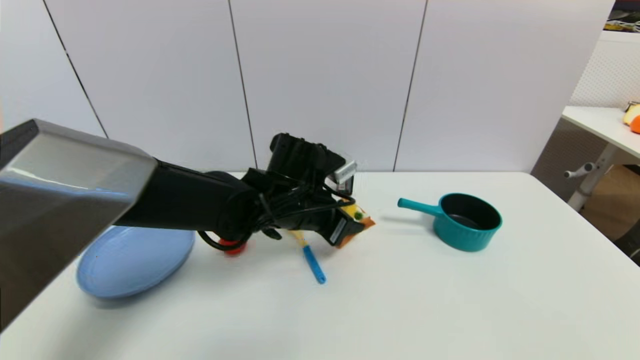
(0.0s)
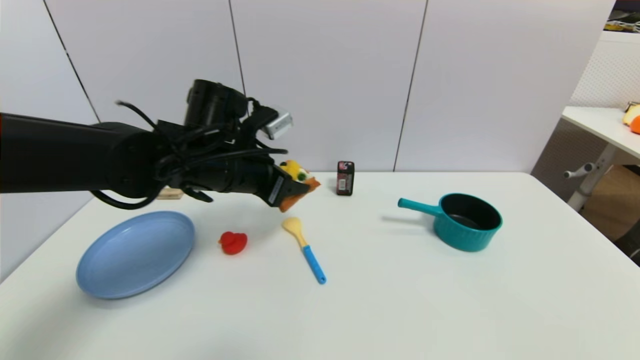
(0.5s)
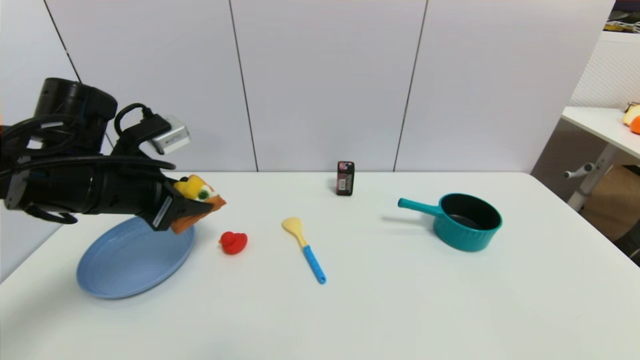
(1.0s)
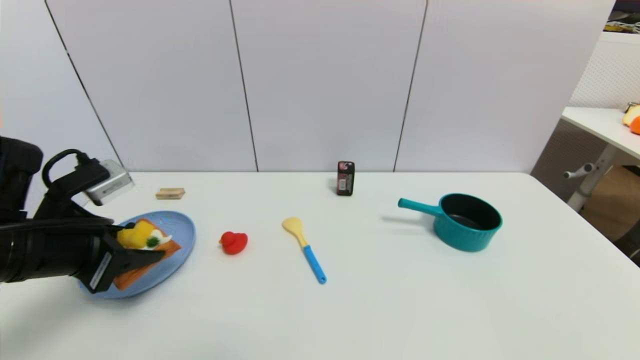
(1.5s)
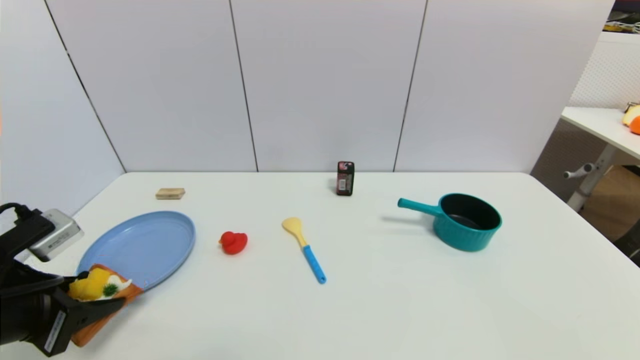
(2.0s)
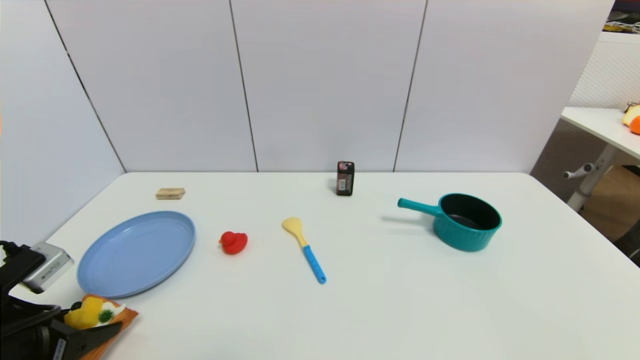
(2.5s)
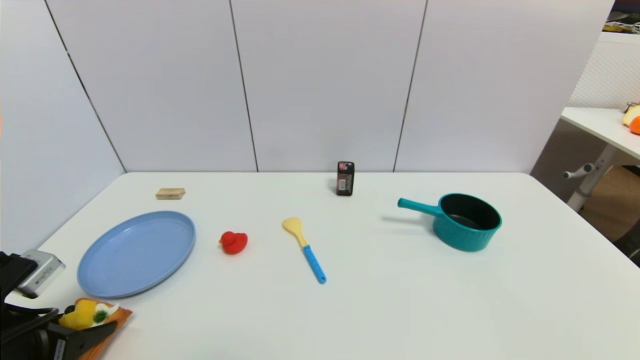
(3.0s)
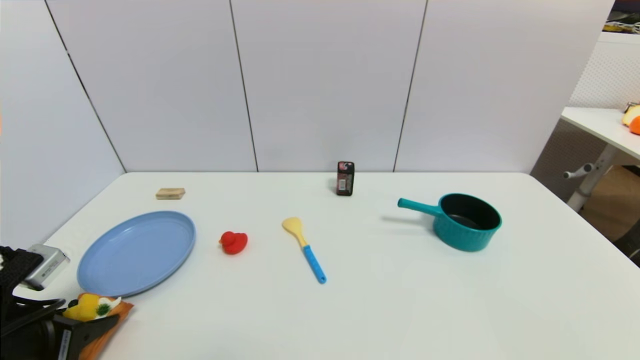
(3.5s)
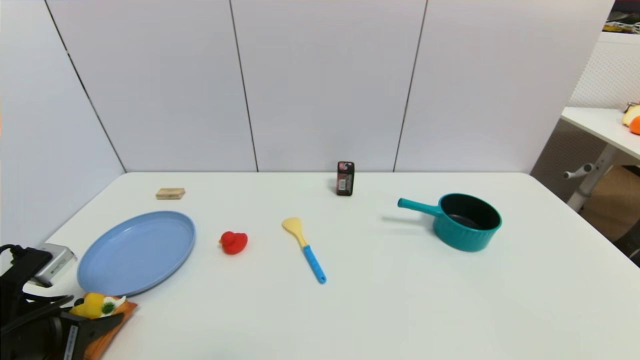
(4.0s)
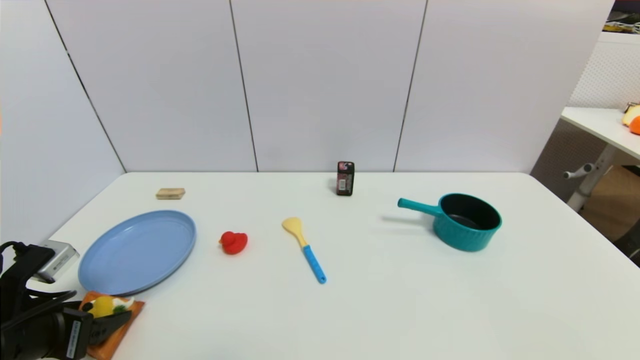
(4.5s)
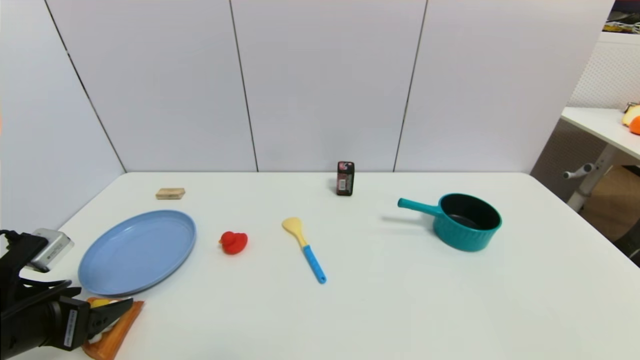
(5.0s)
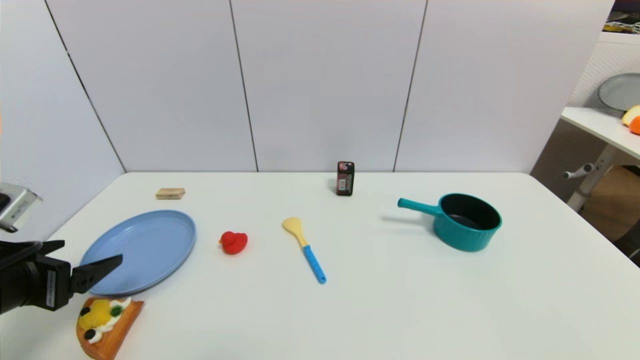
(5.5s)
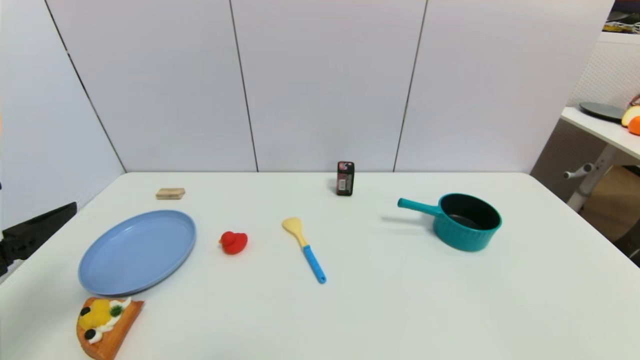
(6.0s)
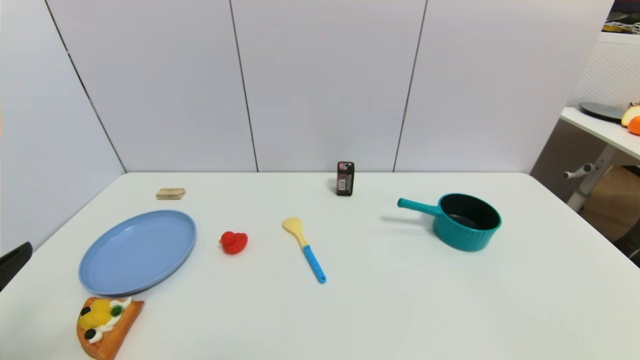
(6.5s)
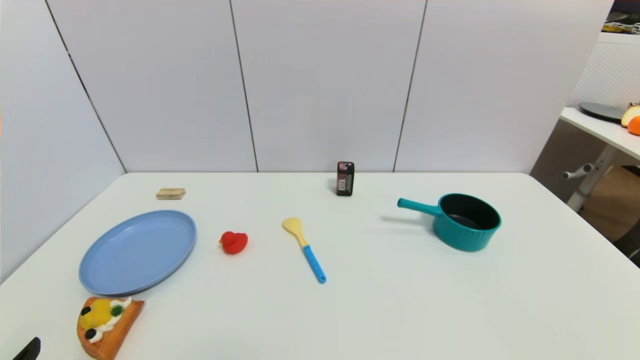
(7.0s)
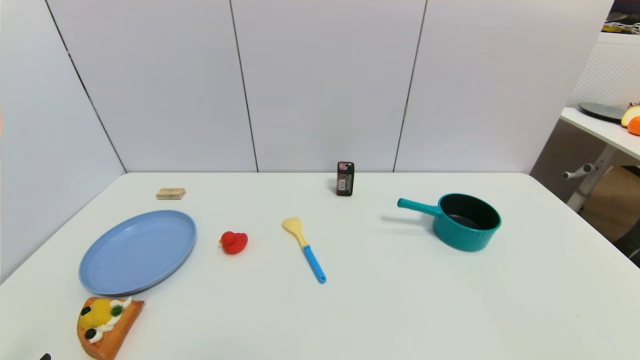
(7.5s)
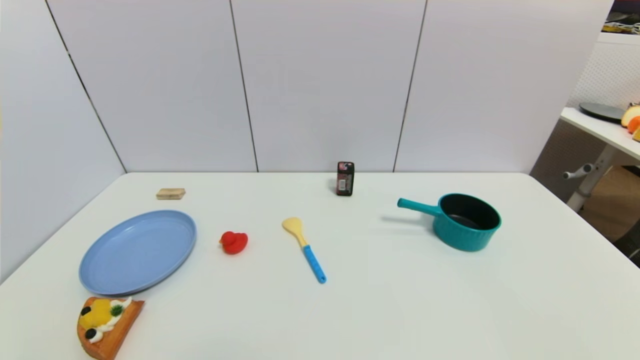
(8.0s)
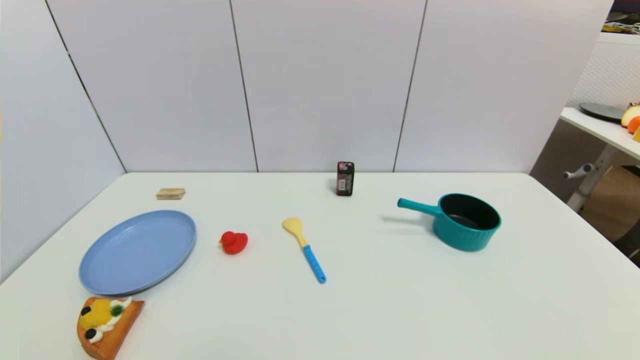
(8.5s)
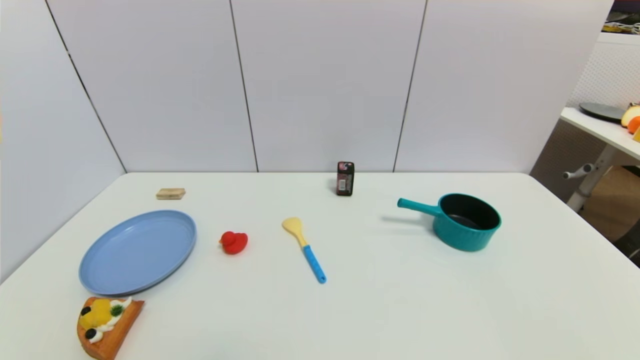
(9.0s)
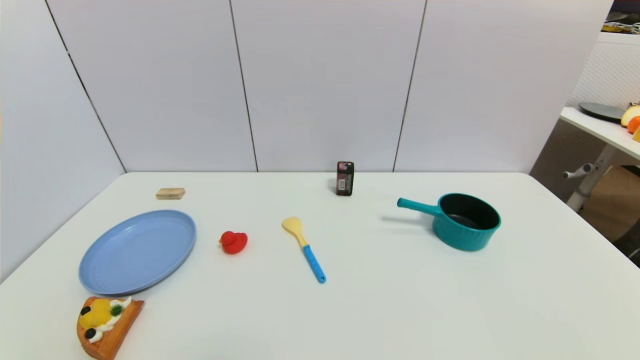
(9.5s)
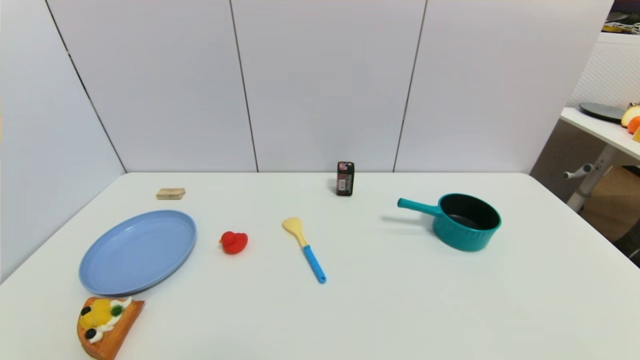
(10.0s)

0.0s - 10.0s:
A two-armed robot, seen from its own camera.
Step, 0.0s - 4.5s: Place the pizza on the table with left gripper.
0.0s - 2.0s: The left gripper shifts some 30 cm to the left and backward.
2.0s - 4.0s: The left gripper is displaced downward by some 5 cm.
4.0s - 6.0s: The left gripper moves upward, about 10 cm, and opens its fingers.
6.0s - 8.0s: The left gripper travels downward and backward by approximately 20 cm.

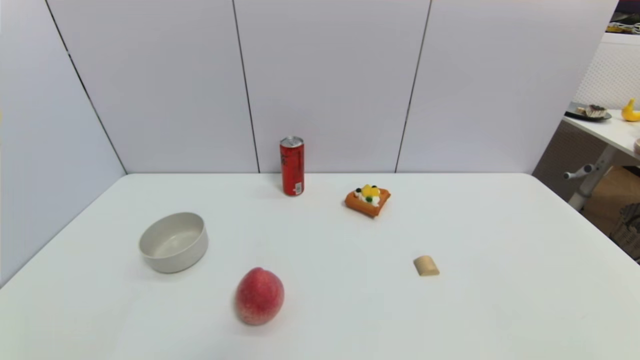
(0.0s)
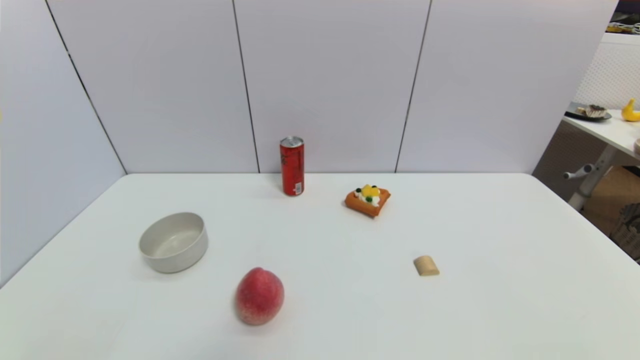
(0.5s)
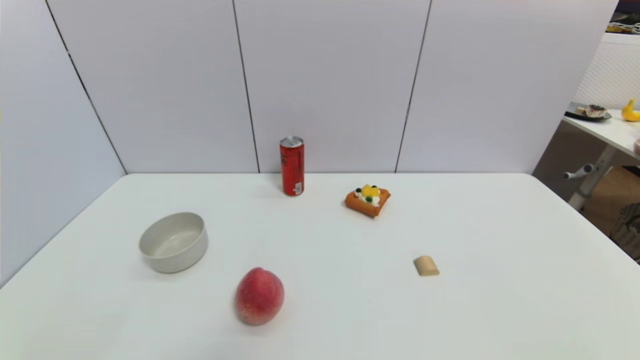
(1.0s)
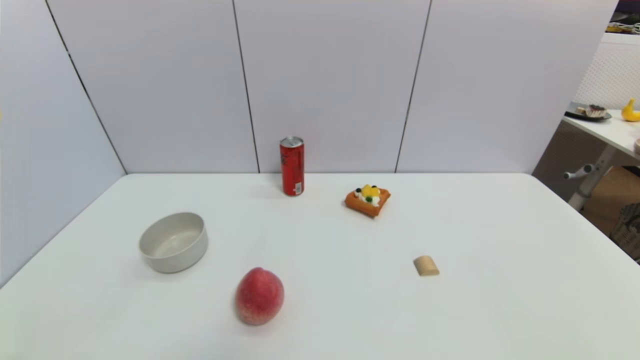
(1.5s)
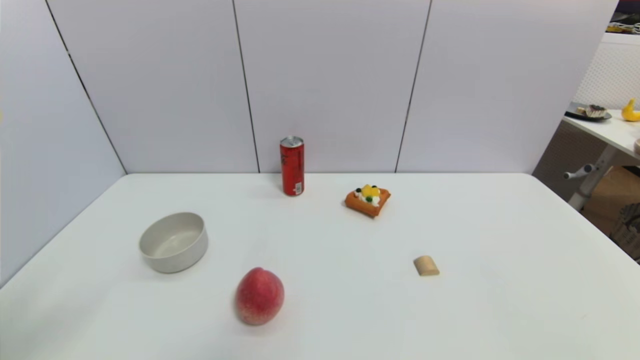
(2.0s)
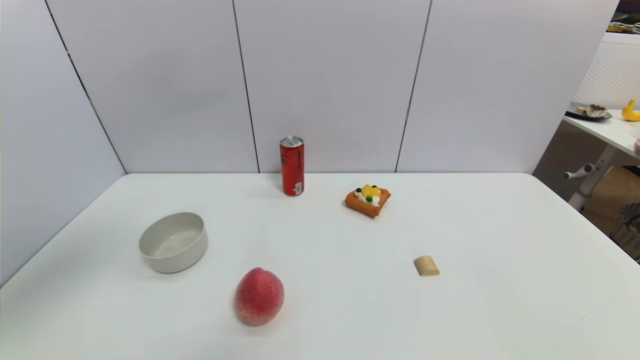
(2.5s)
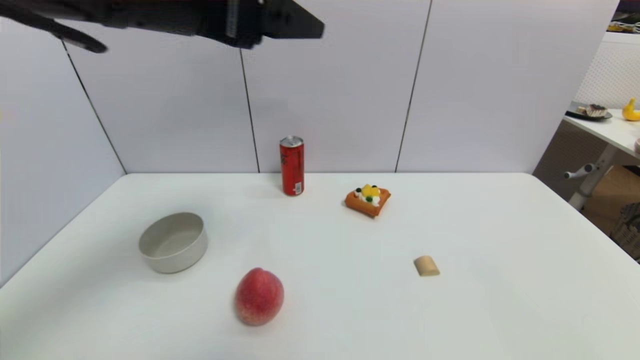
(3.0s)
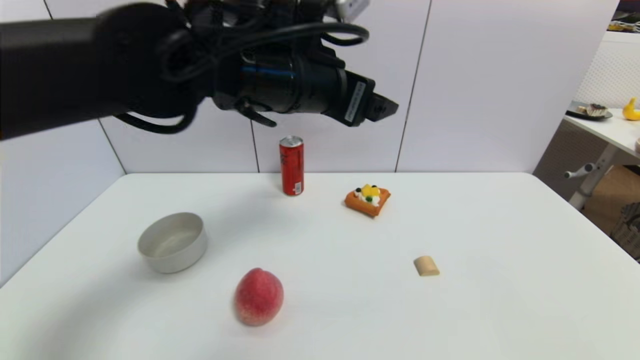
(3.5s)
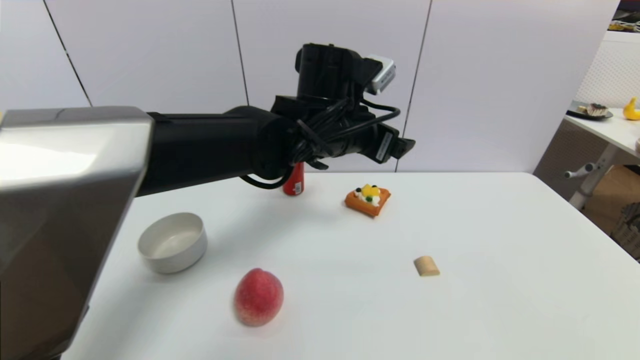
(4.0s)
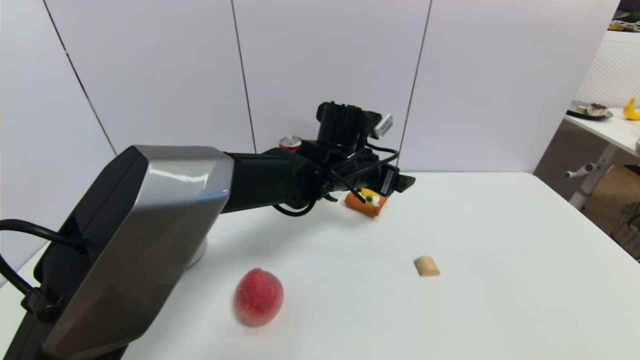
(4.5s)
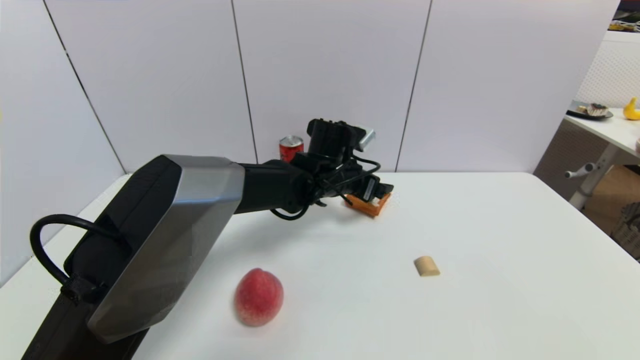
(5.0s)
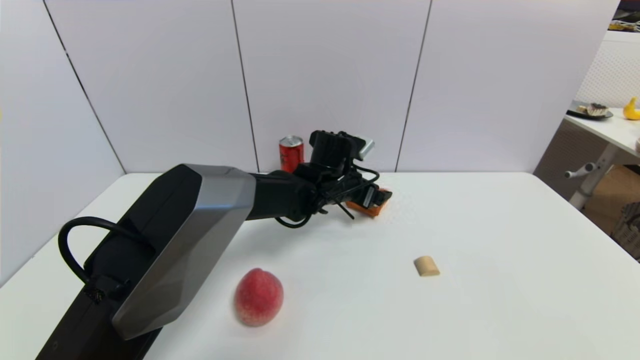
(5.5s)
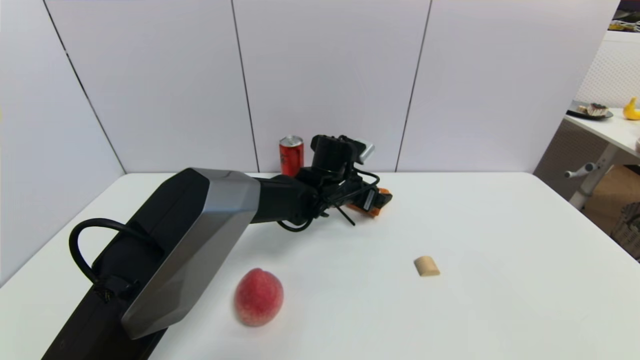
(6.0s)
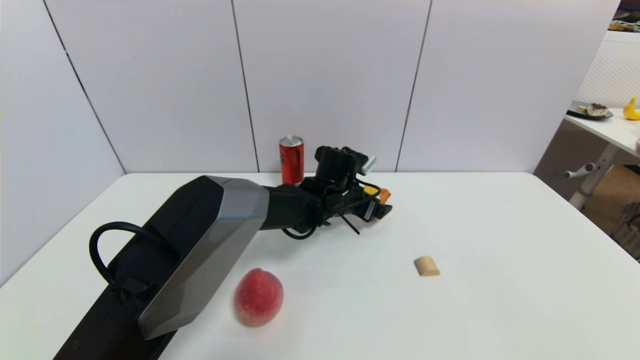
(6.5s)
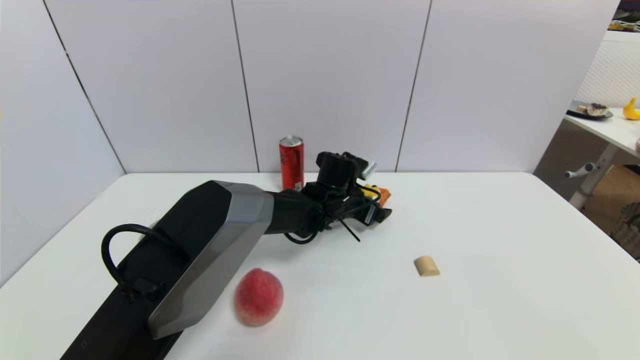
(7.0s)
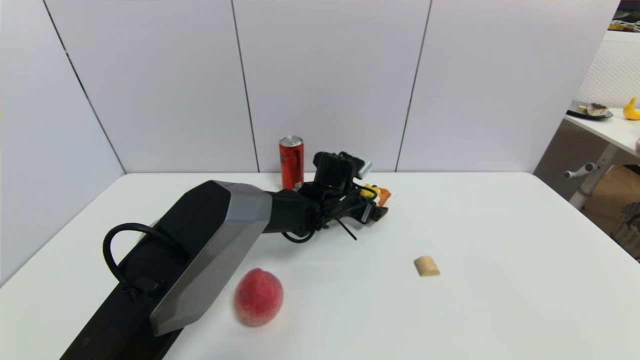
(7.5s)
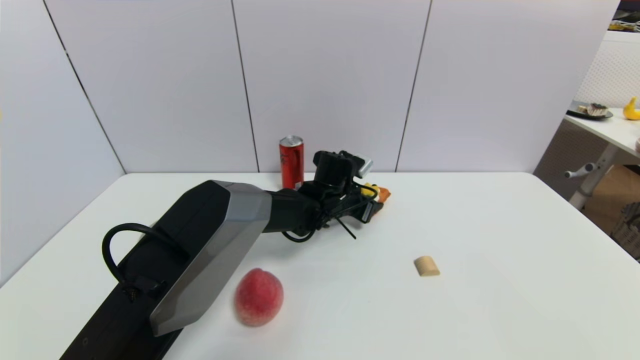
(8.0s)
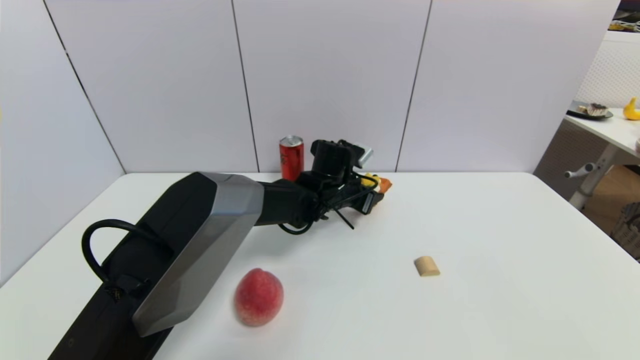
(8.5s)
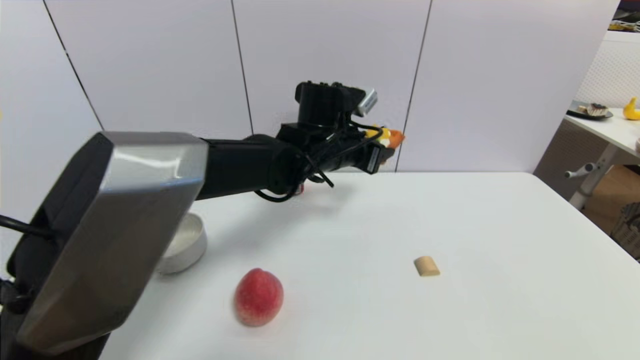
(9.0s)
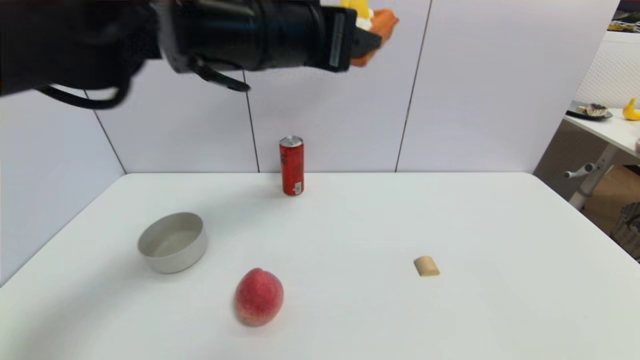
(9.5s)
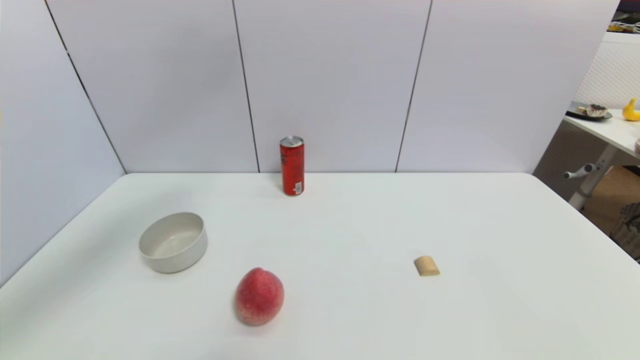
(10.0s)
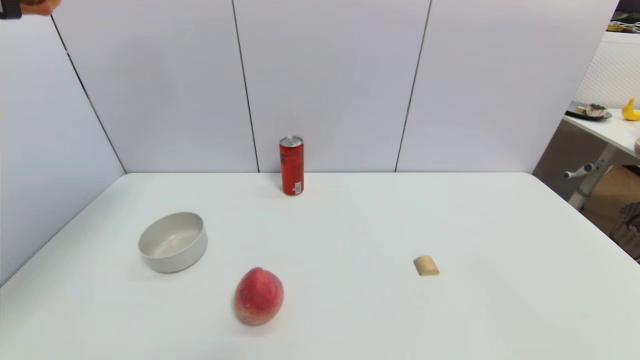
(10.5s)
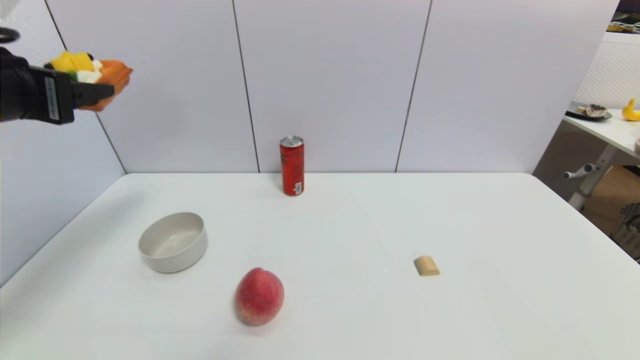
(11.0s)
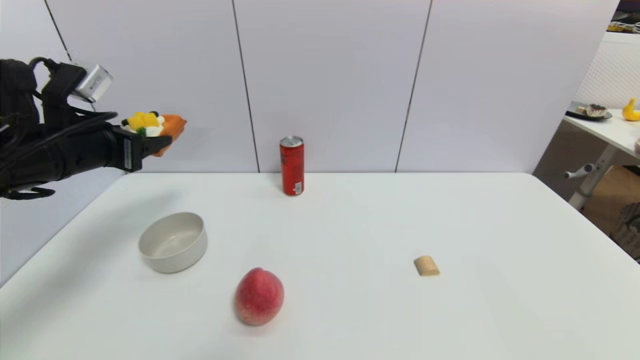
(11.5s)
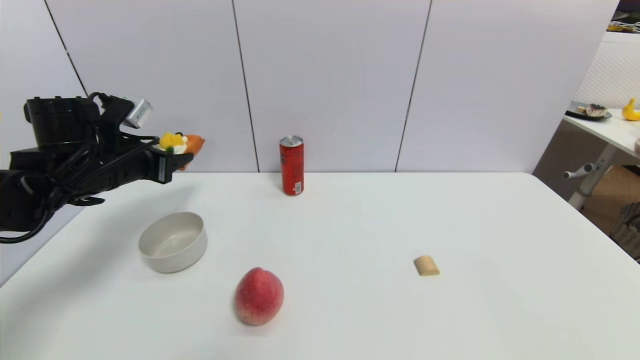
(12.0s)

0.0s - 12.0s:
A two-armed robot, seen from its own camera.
Step, 2.0s - 8.0s: Grasp the pizza with left gripper.
2.0s - 4.0s: The left gripper shifts some 40 cm to the right and forward.
4.0s - 6.0s: The left gripper moves downward and forward, about 15 cm.
6.0s - 8.0s: The left gripper closes its fingers.
8.0s - 10.0s: The left gripper heads upward, backward and to the left, covering about 50 cm.
10.0s - 12.0s: The left gripper goes roughly 30 cm downward, forward and to the left.
